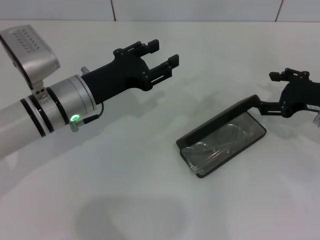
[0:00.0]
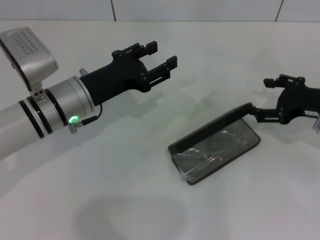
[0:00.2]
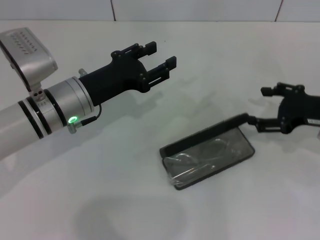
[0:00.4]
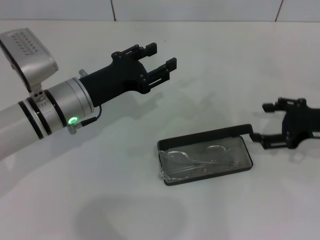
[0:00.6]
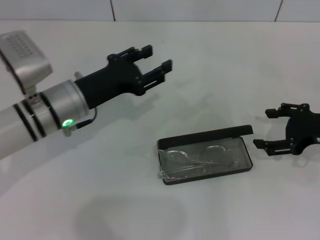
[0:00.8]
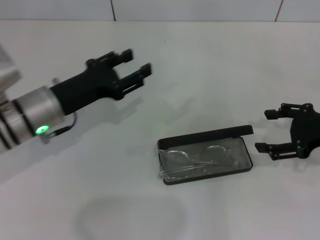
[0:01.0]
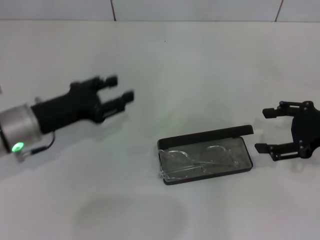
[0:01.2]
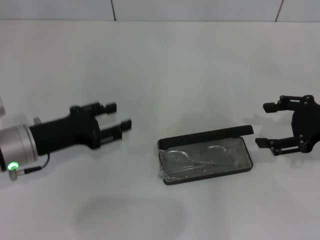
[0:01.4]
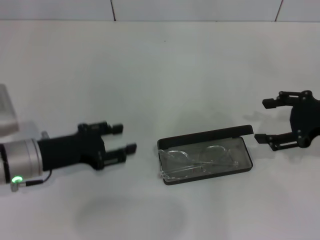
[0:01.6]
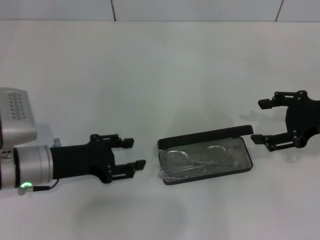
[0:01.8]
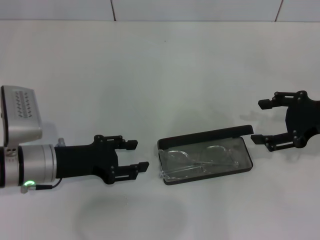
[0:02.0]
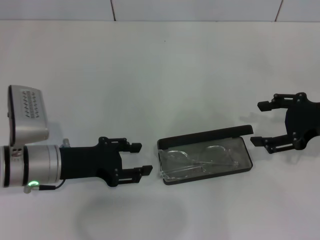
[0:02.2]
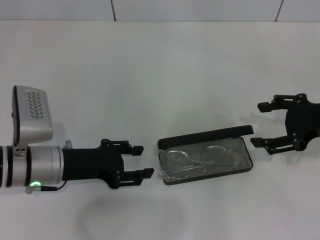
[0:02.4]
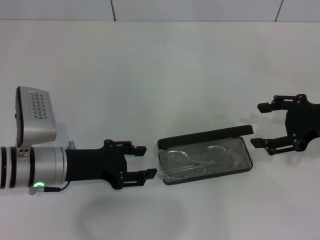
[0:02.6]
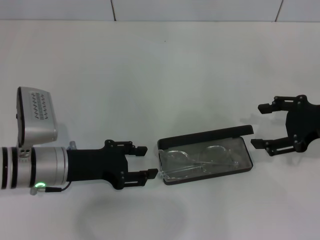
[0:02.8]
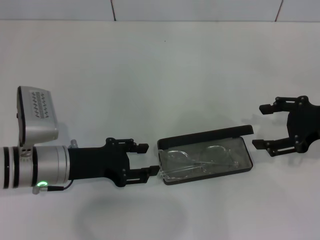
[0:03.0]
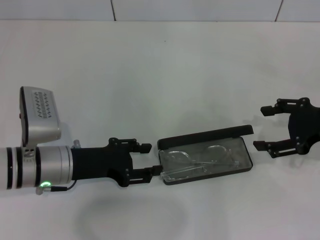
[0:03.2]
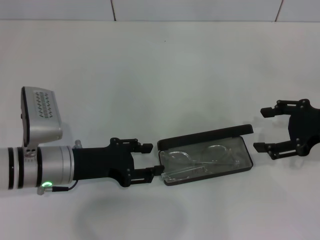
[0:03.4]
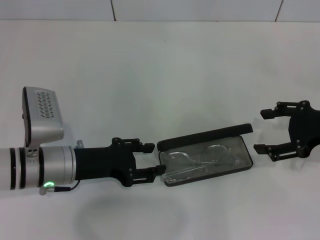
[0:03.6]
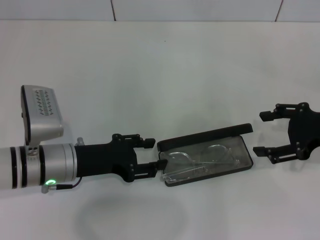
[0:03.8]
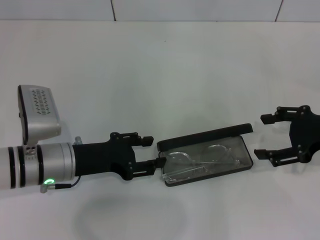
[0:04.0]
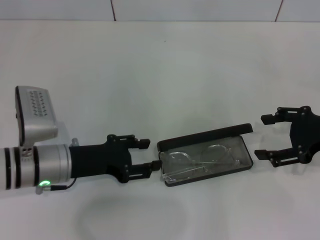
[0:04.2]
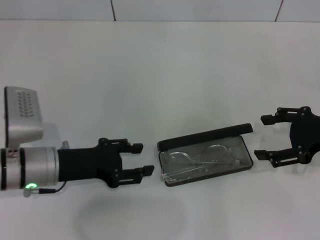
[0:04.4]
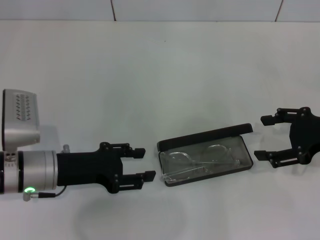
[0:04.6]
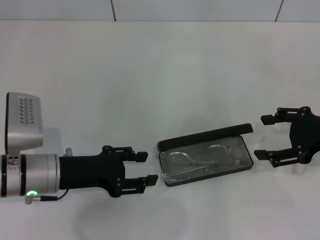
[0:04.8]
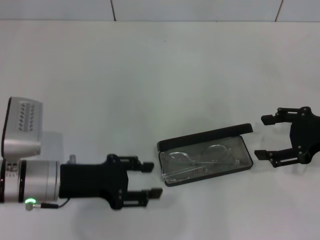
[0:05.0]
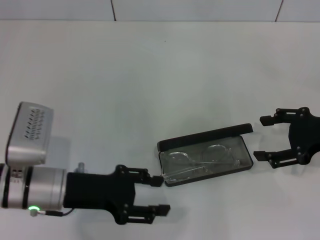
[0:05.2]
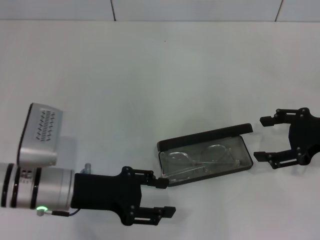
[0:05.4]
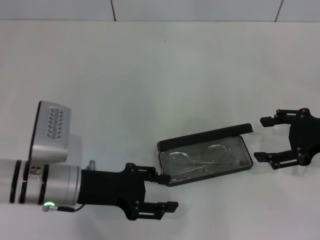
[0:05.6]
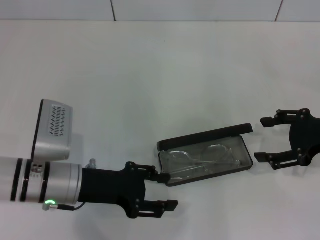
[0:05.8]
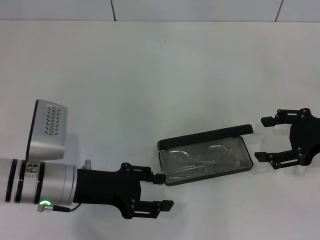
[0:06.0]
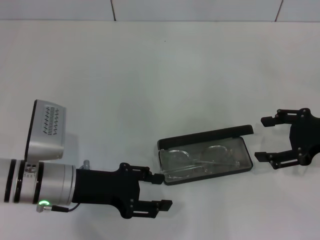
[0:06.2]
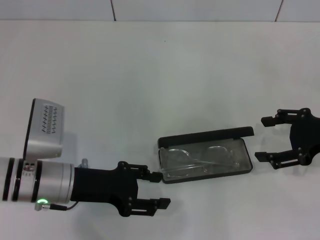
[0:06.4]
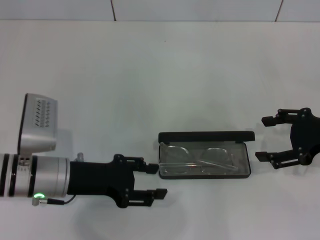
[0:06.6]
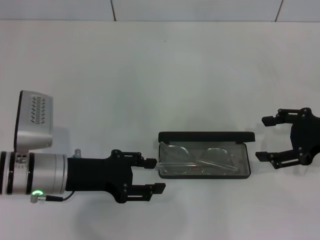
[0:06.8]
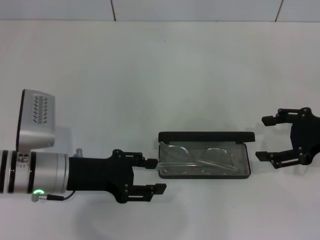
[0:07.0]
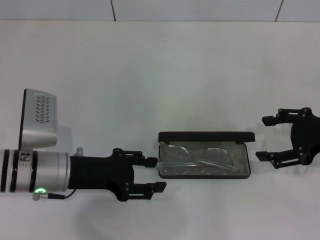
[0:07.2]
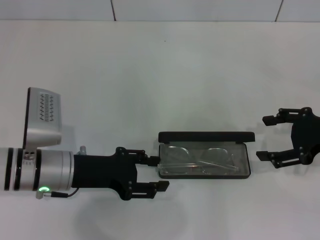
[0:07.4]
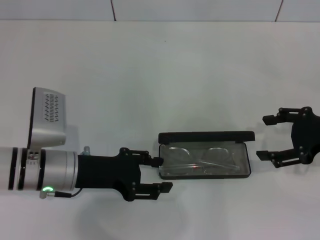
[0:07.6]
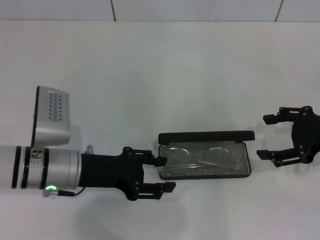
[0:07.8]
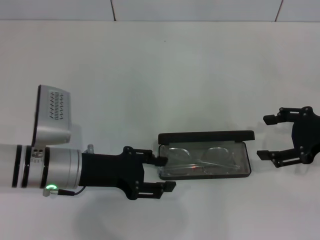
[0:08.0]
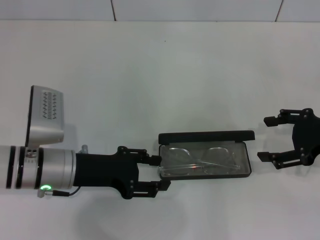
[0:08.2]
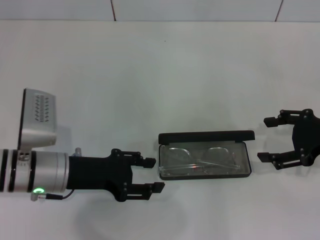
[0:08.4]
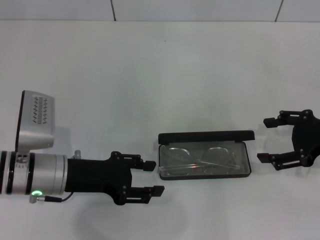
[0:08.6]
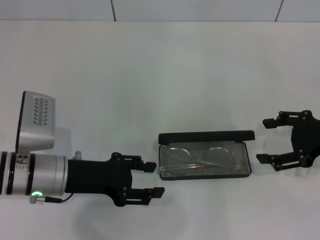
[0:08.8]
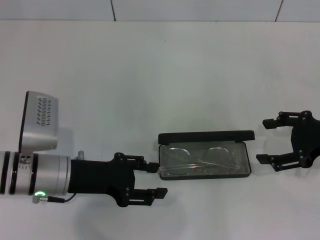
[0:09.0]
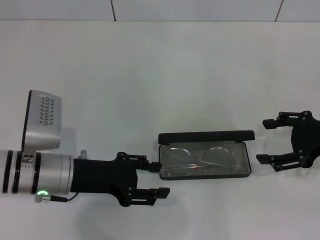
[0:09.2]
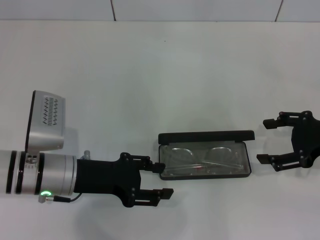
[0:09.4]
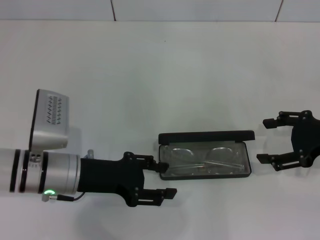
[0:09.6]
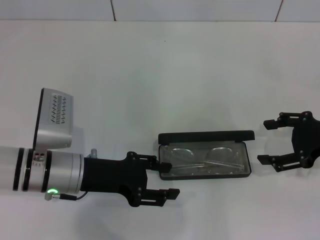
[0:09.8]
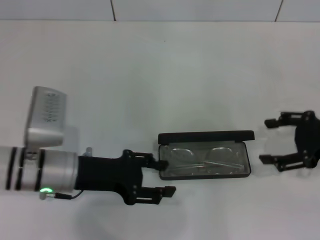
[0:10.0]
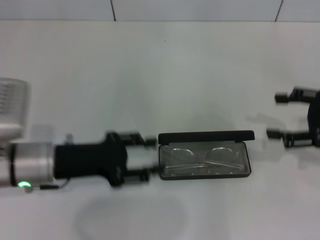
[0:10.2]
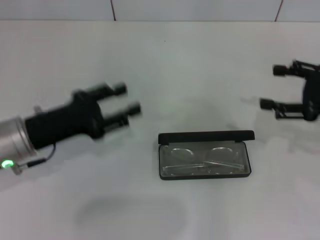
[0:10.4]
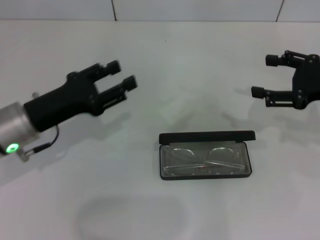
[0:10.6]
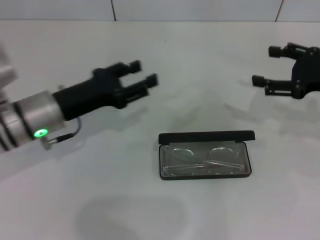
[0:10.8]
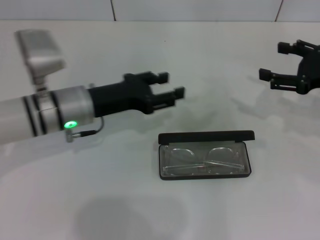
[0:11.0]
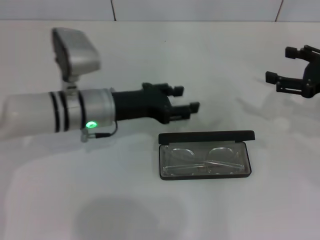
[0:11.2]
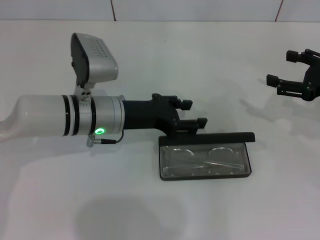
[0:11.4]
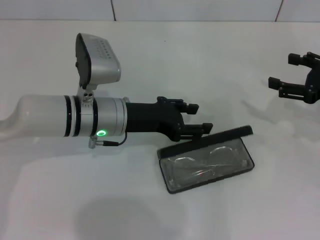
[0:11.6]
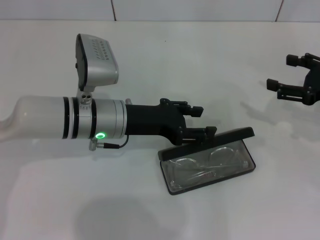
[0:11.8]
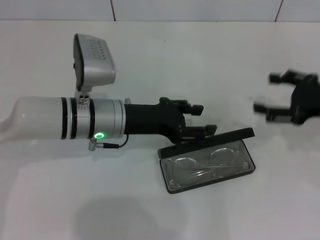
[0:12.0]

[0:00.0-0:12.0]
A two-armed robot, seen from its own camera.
0:00.0 to 0:01.6: The left gripper moves to the left and backward, about 10 cm, while the right gripper shifts by about 5 cm.
0:01.6 to 0:03.0: There are only small adjustments of the grippers.
0:03.0 to 0:04.4: The two grippers keep their place.
0:04.4 to 0:07.6: The grippers stay close to where they were, moving slightly.
0:07.6 to 0:09.0: The two grippers keep their place.
0:09.0 to 0:10.4: The left gripper shifts by roughly 5 cm.
0:10.4 to 0:12.0: The left gripper goes some 15 cm to the right and forward.

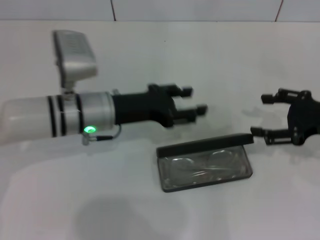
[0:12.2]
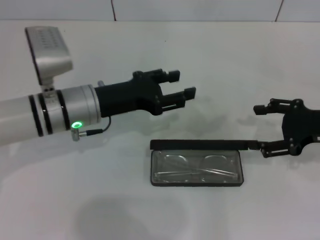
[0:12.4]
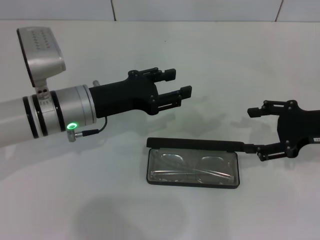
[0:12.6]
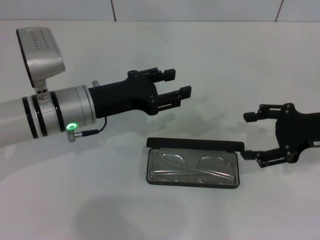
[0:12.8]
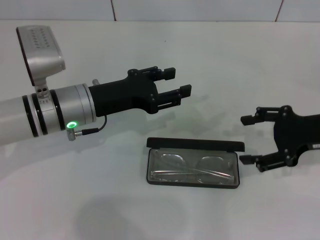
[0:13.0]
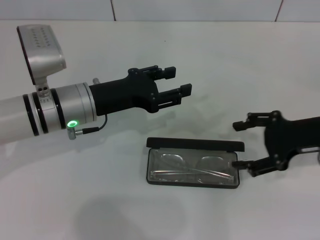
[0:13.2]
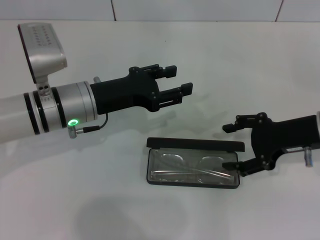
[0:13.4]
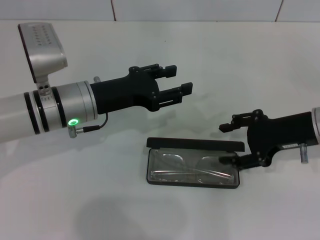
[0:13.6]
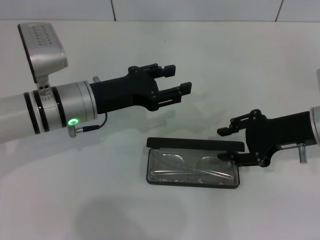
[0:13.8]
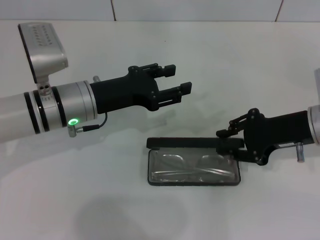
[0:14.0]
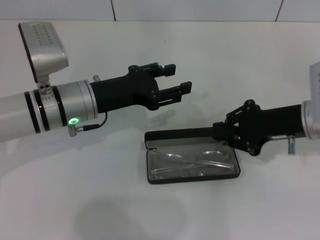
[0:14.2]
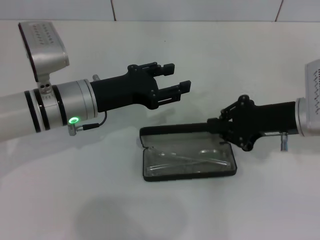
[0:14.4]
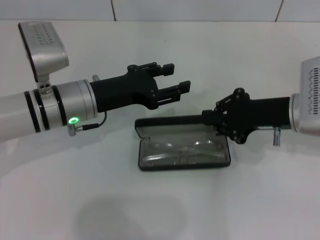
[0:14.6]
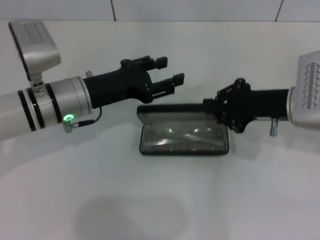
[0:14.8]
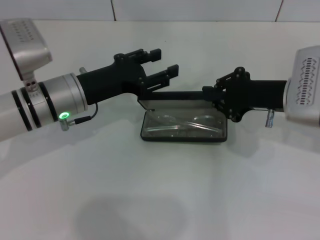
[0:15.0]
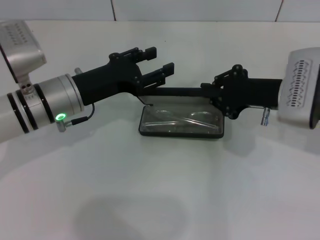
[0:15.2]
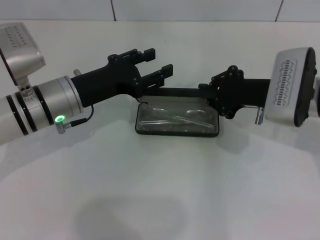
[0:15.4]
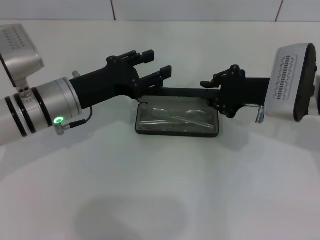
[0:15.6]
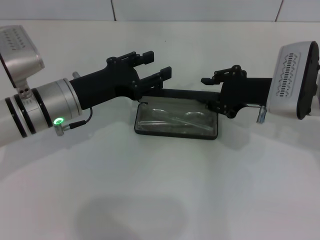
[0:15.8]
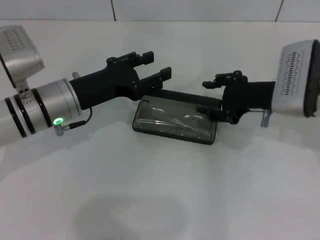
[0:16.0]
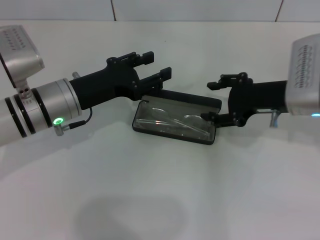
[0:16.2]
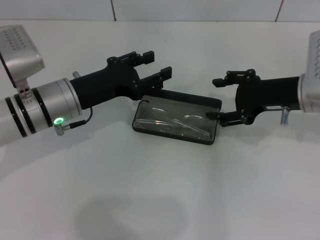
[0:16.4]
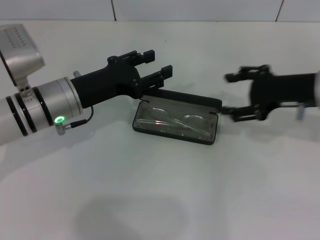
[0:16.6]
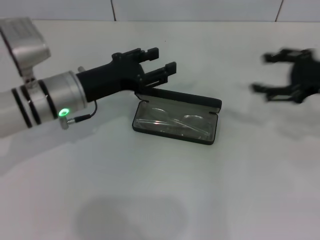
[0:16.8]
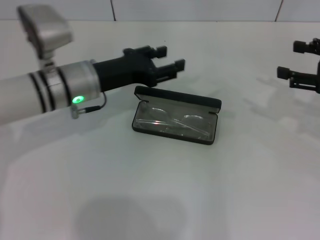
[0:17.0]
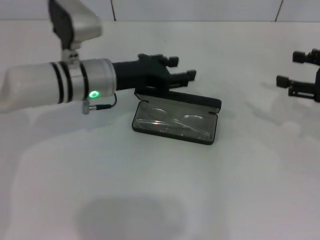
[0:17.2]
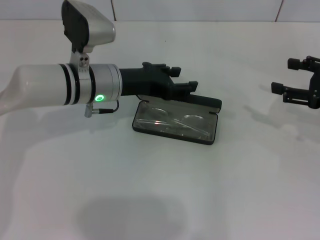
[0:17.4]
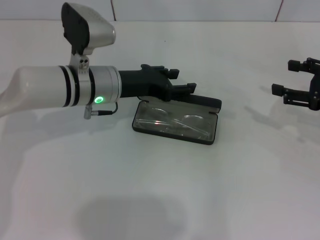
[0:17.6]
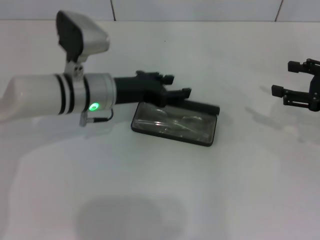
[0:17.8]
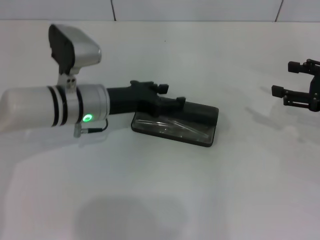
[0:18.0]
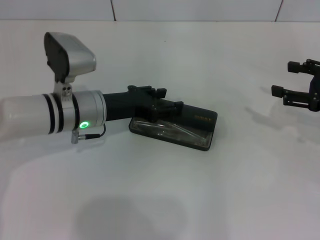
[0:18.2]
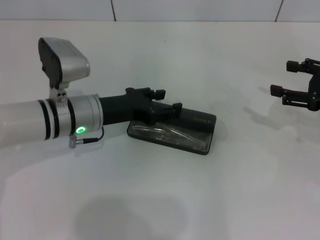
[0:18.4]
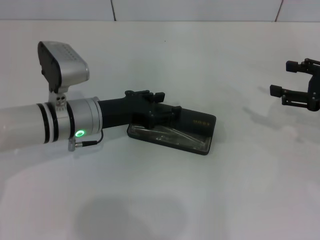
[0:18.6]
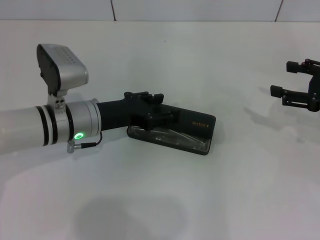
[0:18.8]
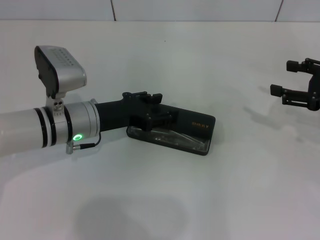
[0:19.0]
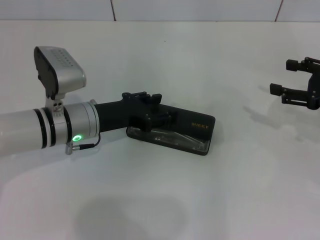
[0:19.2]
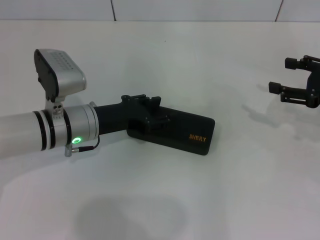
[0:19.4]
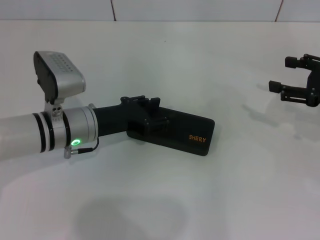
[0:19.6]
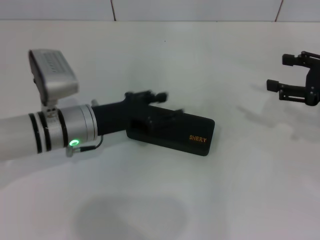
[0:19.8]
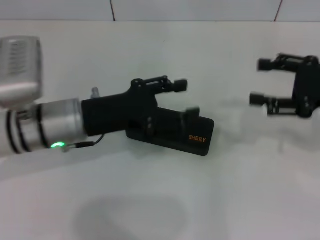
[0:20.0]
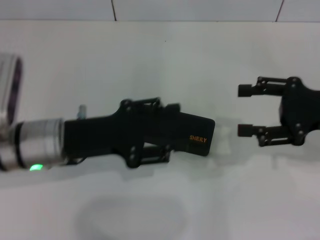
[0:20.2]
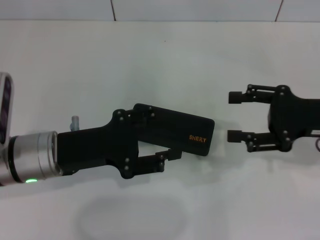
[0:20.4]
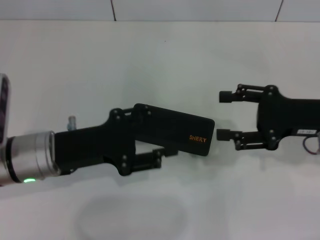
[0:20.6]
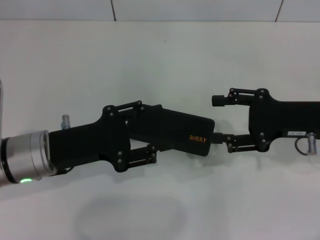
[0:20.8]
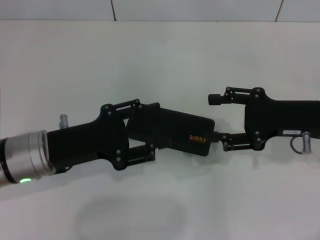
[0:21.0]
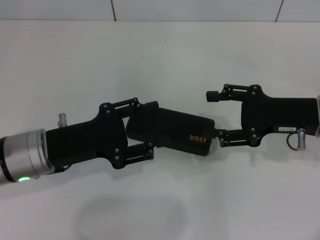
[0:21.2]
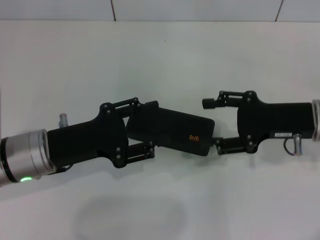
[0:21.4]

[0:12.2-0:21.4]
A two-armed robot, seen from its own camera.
Step, 0:14.2 to 0:16.0: Place the glasses case in the center of the table with your right hand.
Step, 0:16.2 to 0:19.4: Close the glasses case with your left hand.
0:12.2 to 0:13.8: The right gripper is displaced to the left by some 5 cm.
0:13.8 to 0:15.2: The right gripper closes up.
0:15.2 to 0:16.8: The right gripper goes about 10 cm to the right, and opens up.
0:18.4 to 0:19.8: The grippers make only small movements.
0:19.8 to 0:21.4: The left gripper is displaced backward by about 5 cm. Meanwhile the right gripper goes roughly 10 cm to the left.

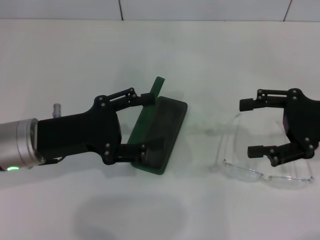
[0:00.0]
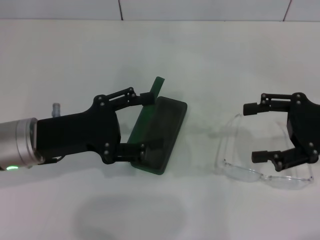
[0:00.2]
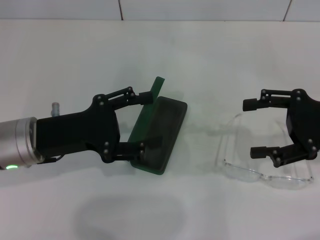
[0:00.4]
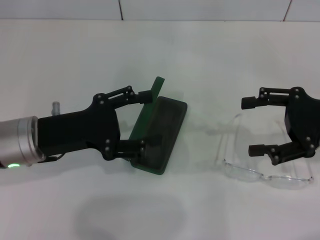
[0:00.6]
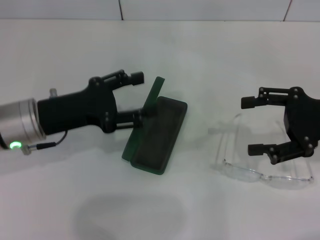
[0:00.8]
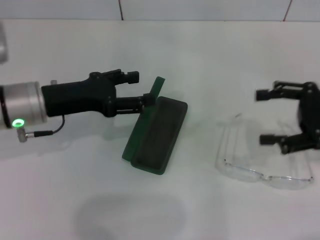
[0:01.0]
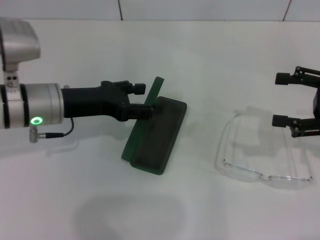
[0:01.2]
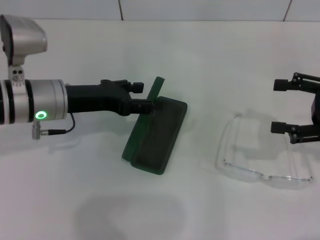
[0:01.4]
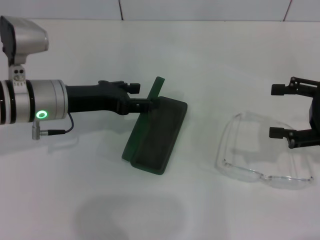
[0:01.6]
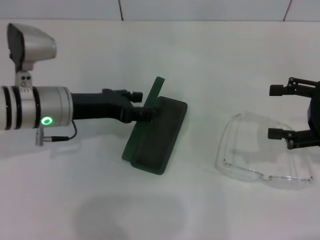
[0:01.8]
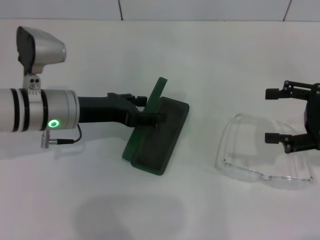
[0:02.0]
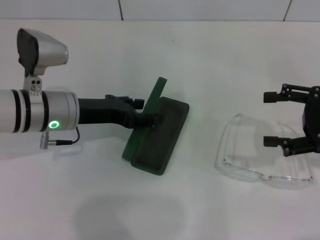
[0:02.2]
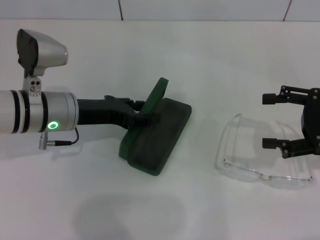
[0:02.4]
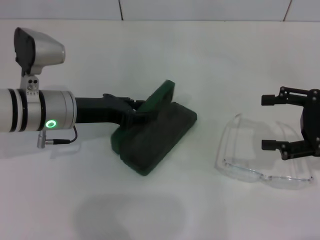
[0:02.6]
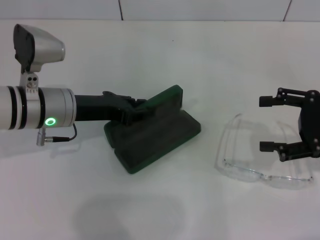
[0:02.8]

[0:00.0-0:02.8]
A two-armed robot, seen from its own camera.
0:00.0 to 0:01.4: The left gripper travels forward by roughly 5 cm.
0:01.4 to 0:02.8: The left gripper closes up.
